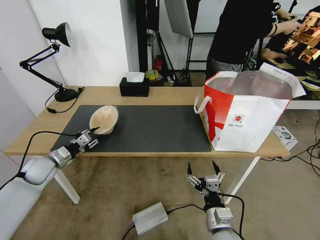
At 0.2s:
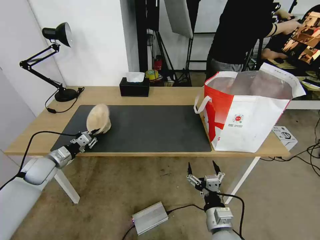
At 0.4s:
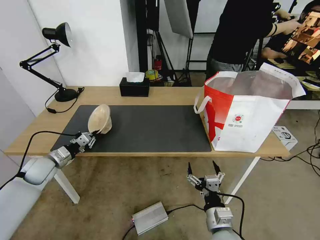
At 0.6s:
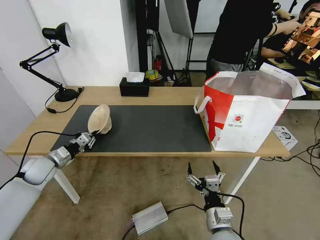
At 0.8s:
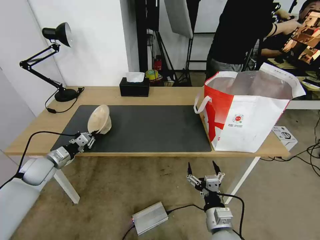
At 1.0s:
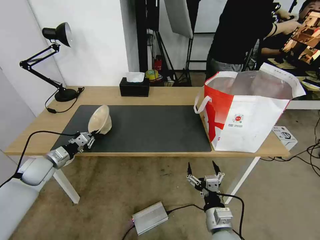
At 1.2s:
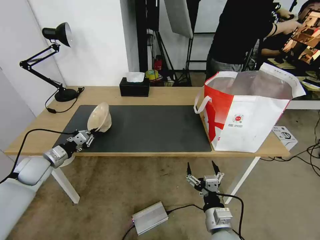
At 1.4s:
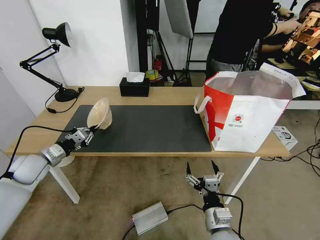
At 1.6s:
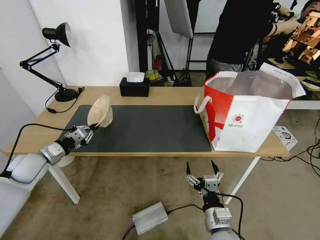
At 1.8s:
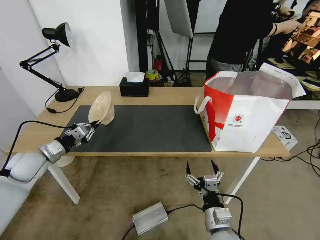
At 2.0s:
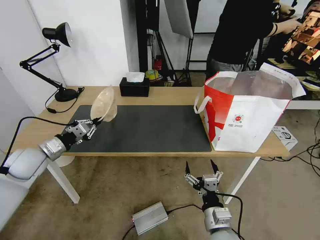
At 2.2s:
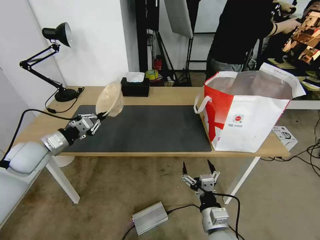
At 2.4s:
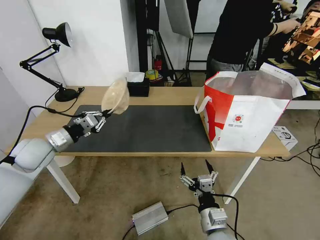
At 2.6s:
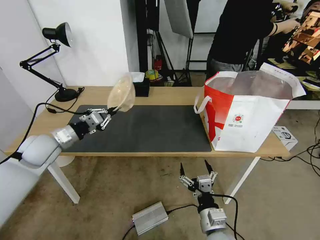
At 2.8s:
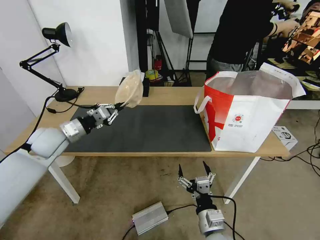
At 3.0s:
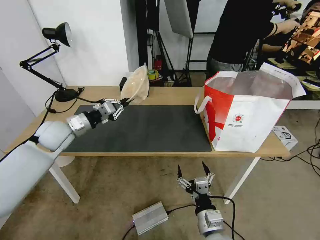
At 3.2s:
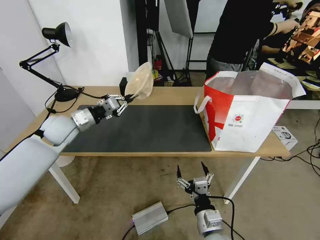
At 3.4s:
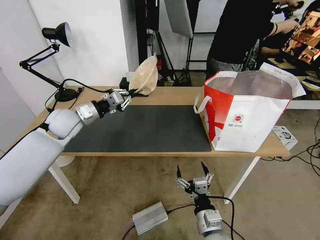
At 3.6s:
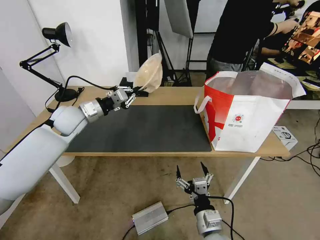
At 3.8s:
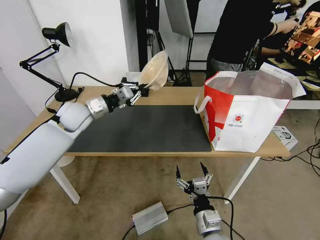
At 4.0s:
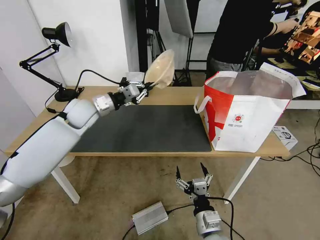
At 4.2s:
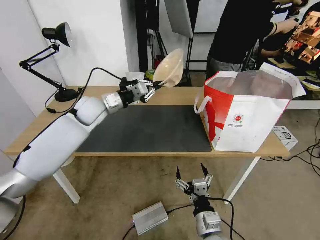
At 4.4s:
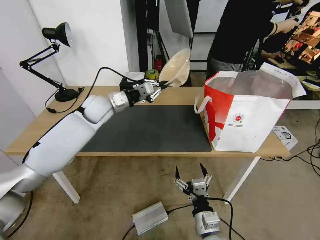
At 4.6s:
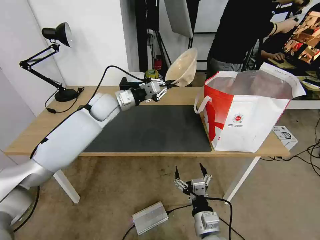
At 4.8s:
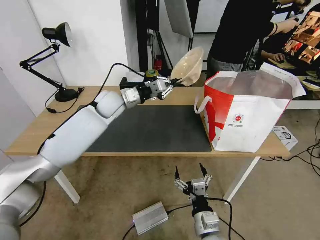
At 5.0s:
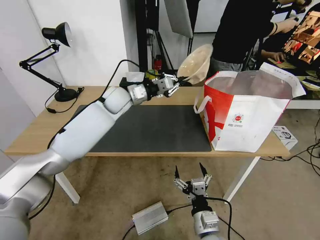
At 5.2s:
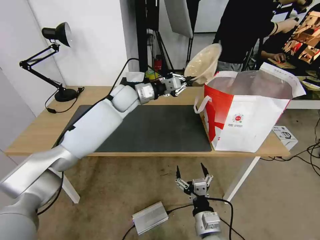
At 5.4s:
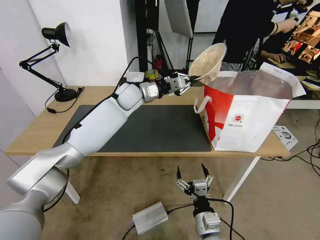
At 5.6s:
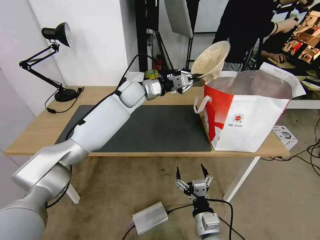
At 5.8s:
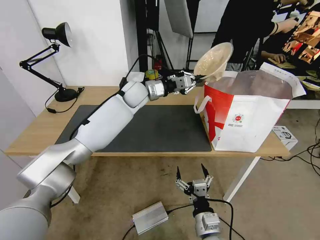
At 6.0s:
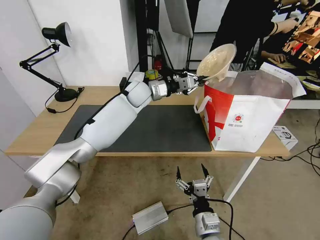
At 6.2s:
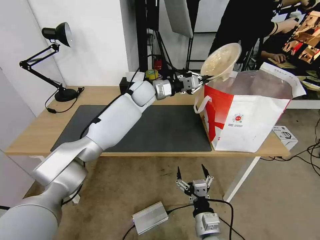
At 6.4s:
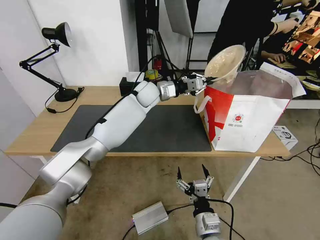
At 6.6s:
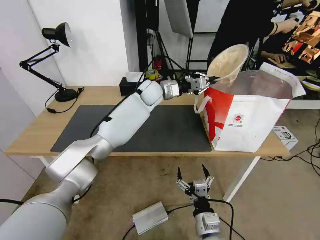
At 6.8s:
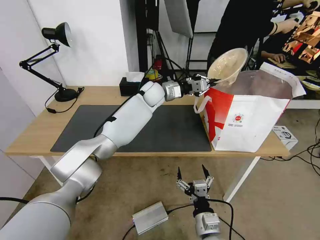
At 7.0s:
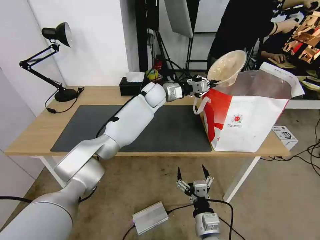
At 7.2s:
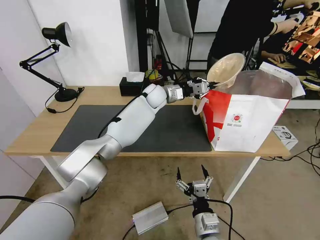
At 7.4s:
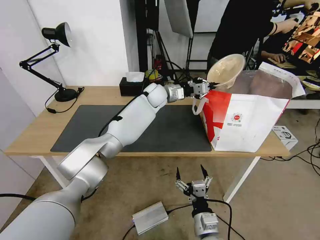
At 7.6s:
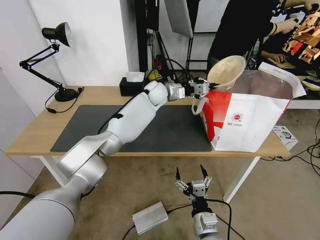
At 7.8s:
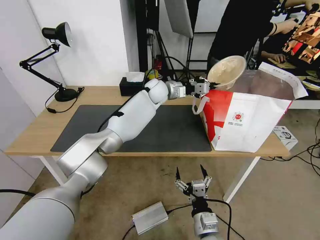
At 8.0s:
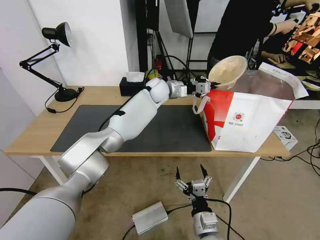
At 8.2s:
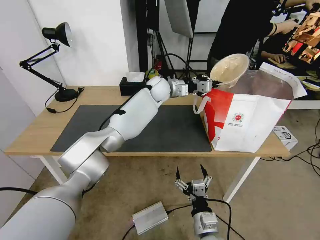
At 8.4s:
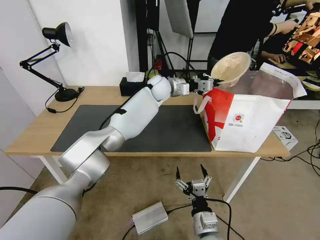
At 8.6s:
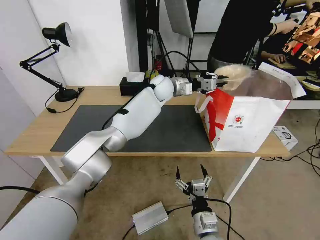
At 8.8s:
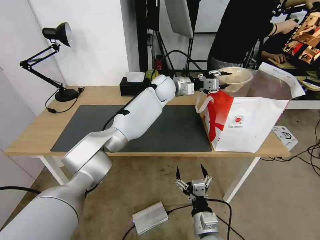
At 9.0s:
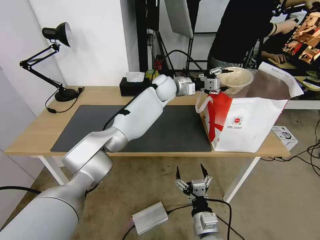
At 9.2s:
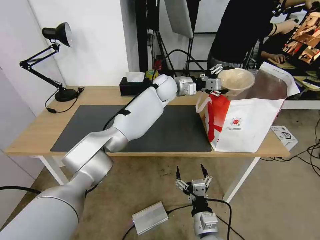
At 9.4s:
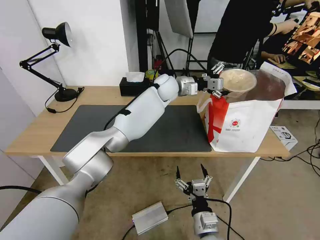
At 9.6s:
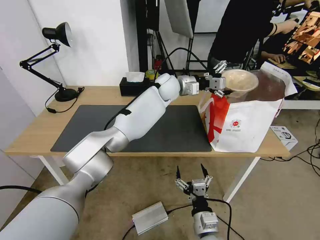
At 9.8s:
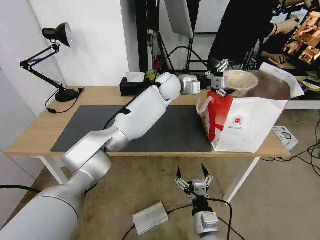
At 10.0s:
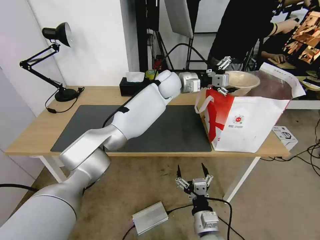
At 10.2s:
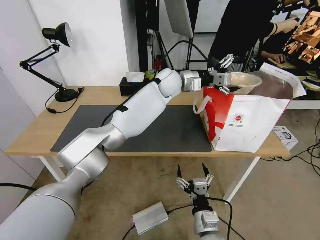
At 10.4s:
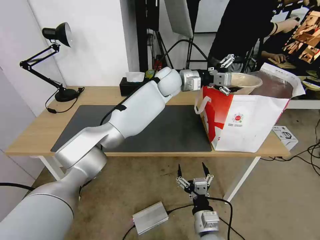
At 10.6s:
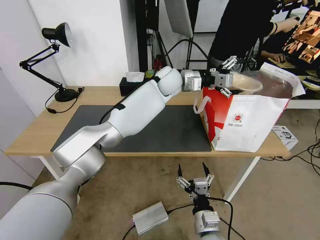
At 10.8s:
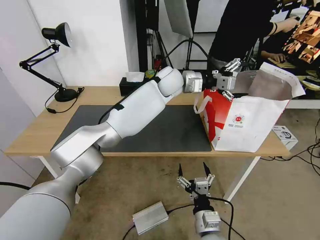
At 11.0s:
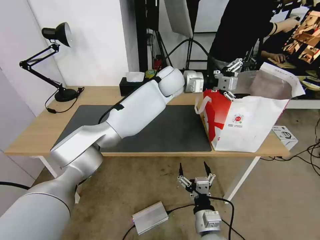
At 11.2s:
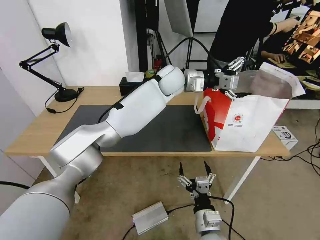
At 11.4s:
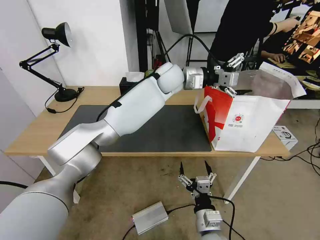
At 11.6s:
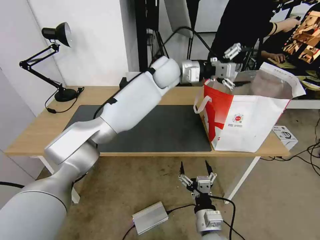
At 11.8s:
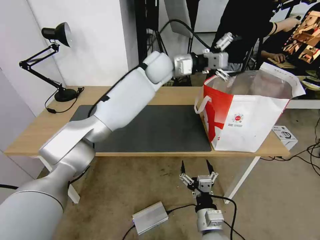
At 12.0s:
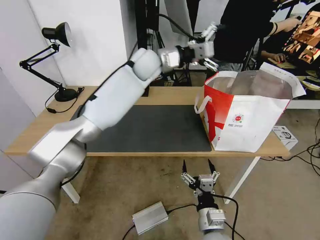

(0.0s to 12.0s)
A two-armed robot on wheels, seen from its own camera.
Task of the whole recording: Pick up the trash from the table and place it into the takeout bag.
0.0s - 1.6s: The left gripper heads upward, covering some 5 cm.
1.6s - 3.0s: The left gripper is displaced to the right, upward and forward by approximately 15 cm.
3.0s - 4.4s: The left gripper goes roughly 15 cm to the right and forward.
4.4s - 6.0s: The left gripper travels to the right and forward by about 15 cm.
6.0s - 7.6s: The left gripper travels to the right by about 5 cm.
7.6s - 9.0s: The left gripper opens up.
9.0s - 10.4s: The grippers make only small movements.
10.4s - 12.0s: The left gripper travels to the left and upward by roughly 10 cm.

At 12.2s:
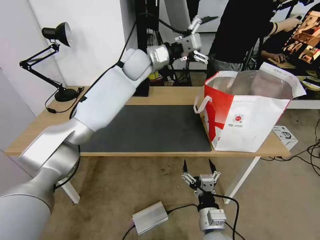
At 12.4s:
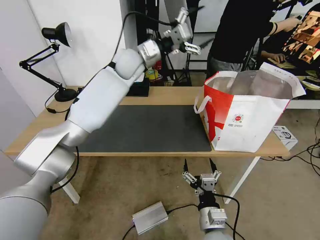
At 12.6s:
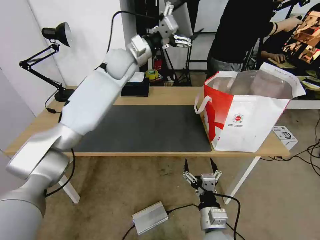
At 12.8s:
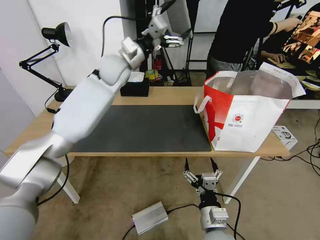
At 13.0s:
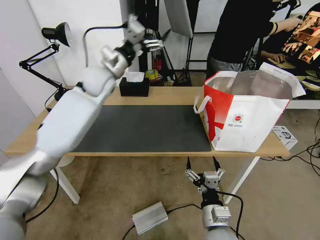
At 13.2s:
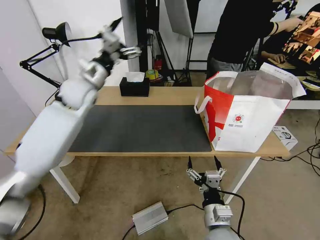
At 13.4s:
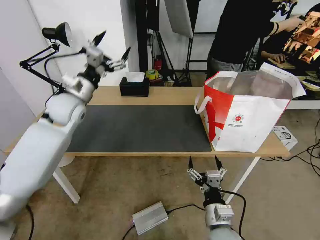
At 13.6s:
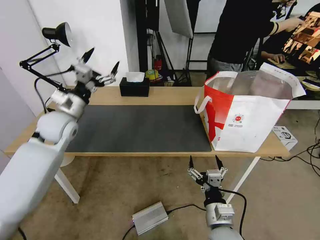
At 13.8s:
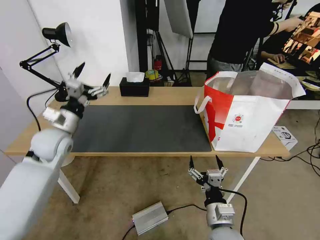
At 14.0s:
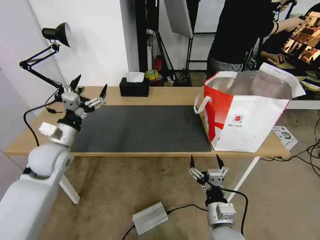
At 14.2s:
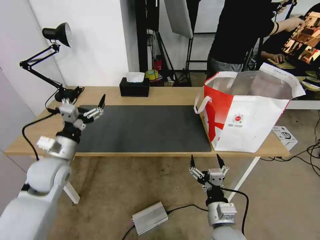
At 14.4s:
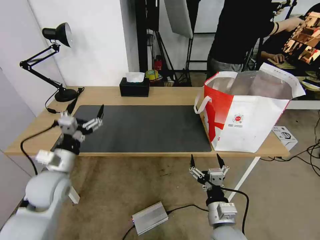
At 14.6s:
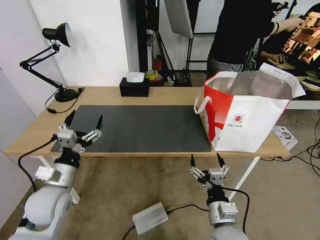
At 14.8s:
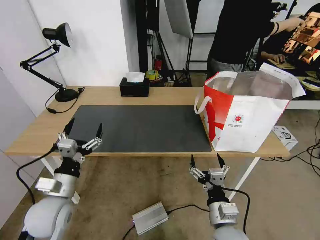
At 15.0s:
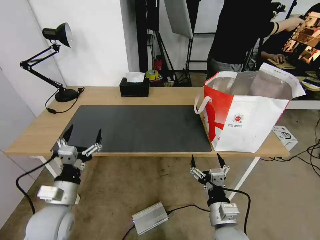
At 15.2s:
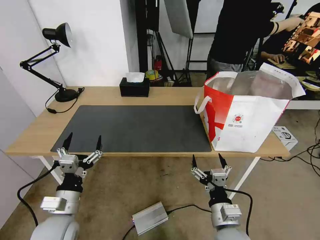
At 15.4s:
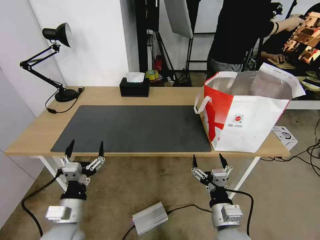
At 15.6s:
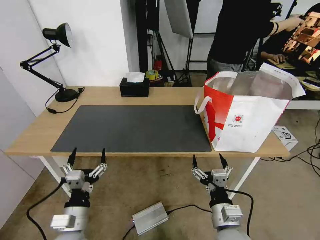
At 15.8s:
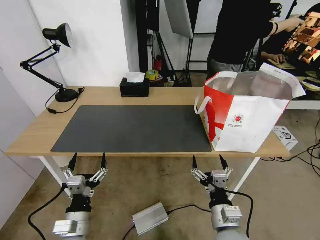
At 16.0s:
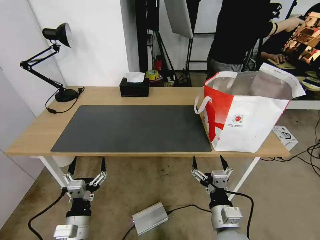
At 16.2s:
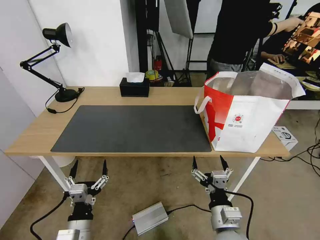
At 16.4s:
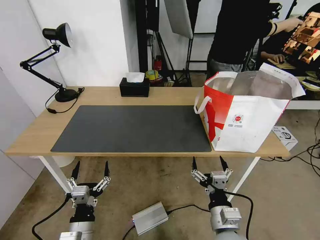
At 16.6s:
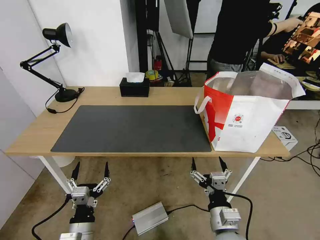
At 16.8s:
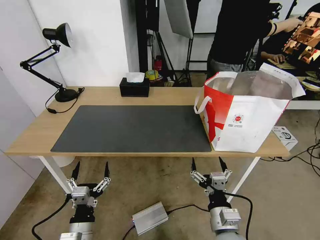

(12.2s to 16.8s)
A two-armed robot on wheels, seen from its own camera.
Task of the whole recording: Pick up the trash from the table and place it into the takeout bag.
12.2s - 13.8s: The left gripper goes roughly 35 cm to the left, backward and downward.
13.8s - 15.2s: The left gripper heads backward and downward, covering some 25 cm.
15.2s - 16.8s: The left gripper is displaced downward and backward by about 10 cm.

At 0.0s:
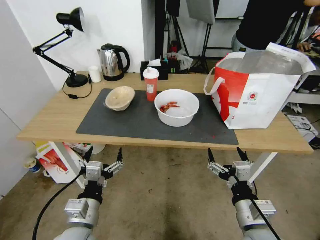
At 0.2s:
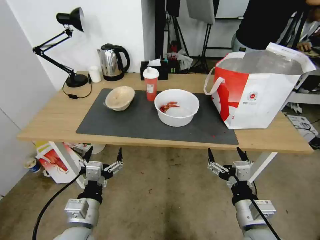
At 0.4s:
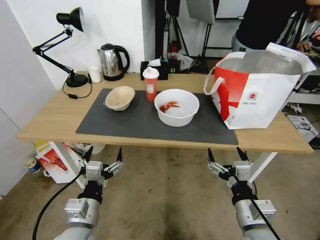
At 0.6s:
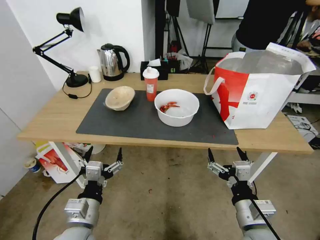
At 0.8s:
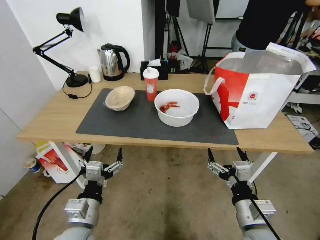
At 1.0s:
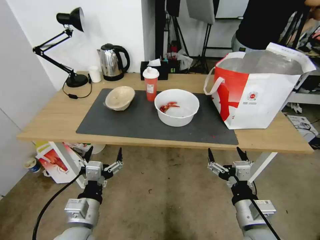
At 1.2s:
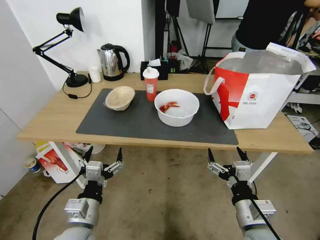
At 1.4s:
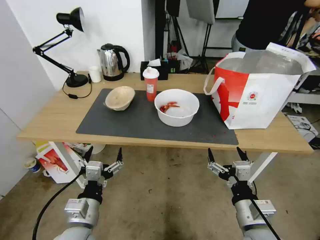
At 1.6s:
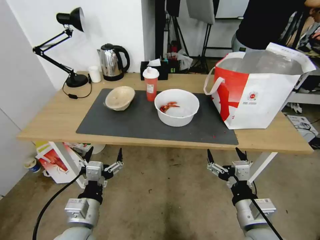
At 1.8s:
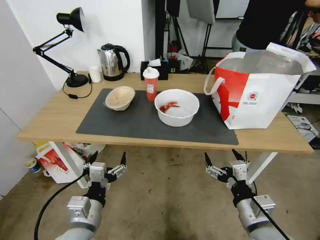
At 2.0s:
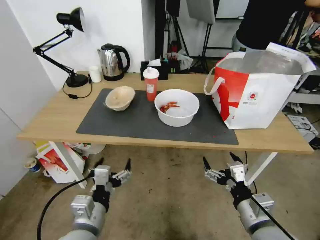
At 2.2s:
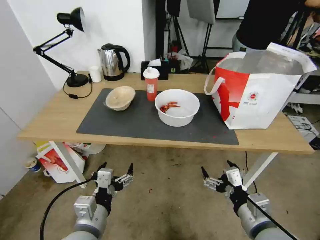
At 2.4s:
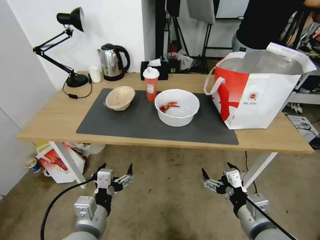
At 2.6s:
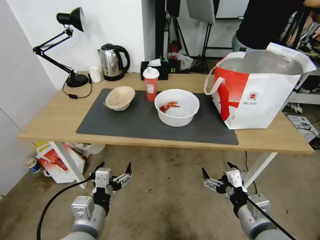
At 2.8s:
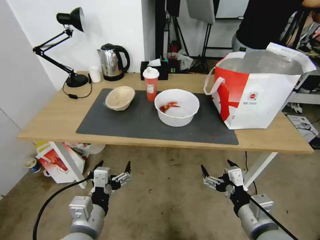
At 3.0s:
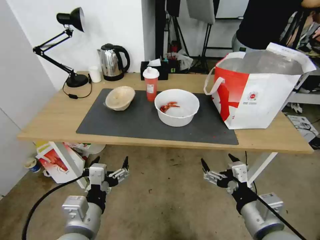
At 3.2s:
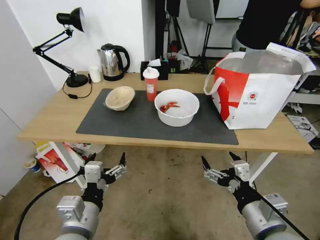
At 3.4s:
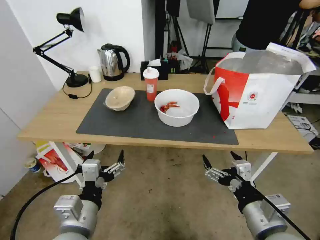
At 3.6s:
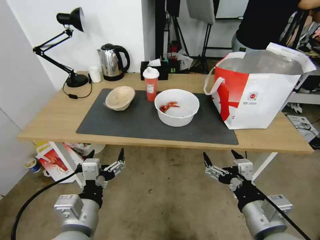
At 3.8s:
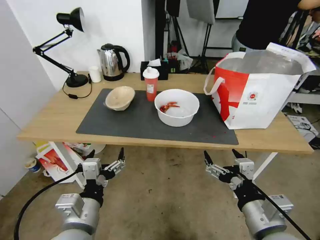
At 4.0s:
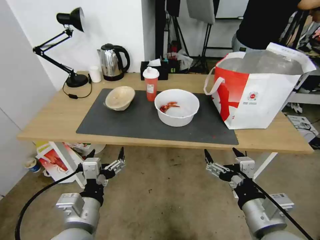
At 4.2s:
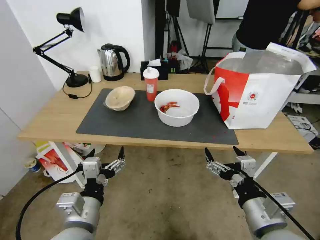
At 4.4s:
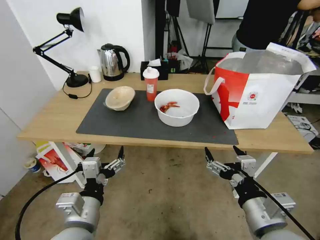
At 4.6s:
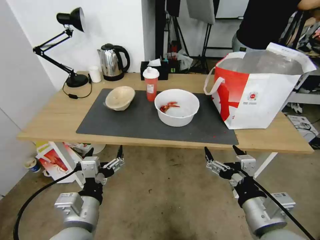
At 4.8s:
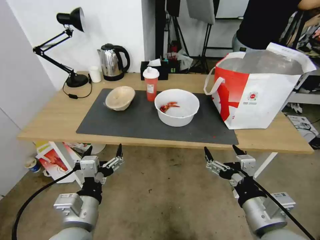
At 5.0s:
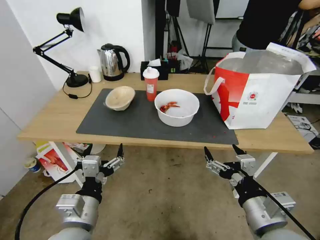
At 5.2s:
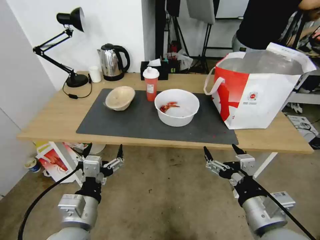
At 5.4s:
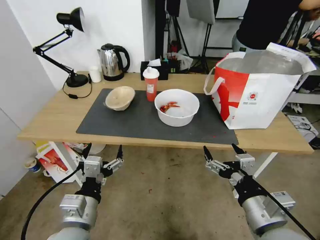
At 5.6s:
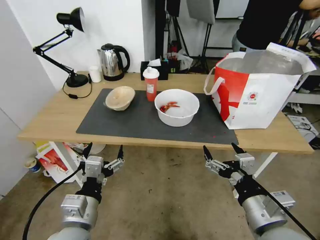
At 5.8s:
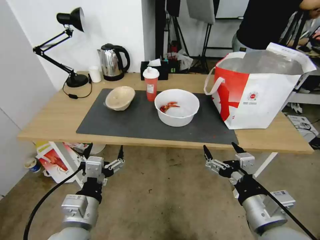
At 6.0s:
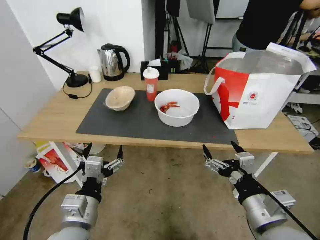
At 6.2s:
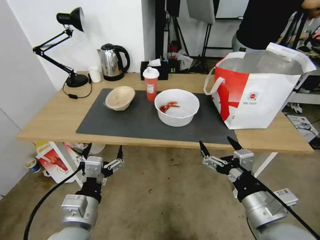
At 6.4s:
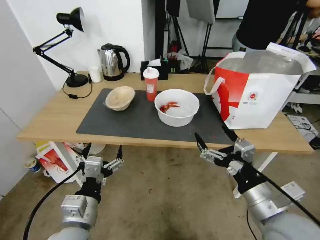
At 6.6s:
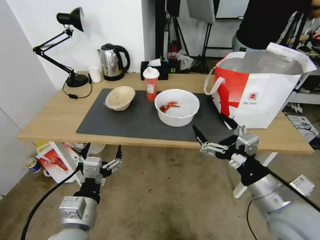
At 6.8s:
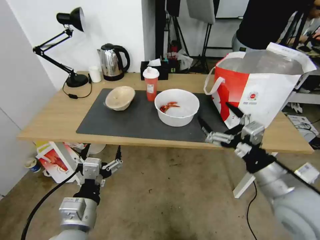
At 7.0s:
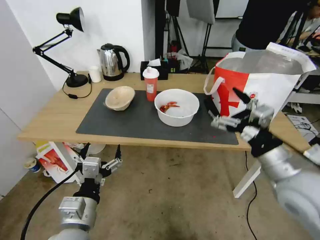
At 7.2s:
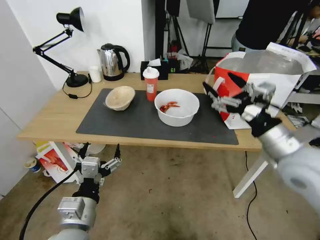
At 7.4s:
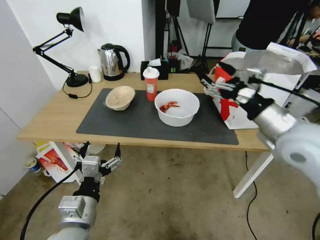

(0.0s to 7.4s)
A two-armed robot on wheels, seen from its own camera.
Task of the whole recording: Pick up the trash from the table and place it into the takeout bag.
1.4s - 3.0s: The right gripper moves upward, about 5 cm; the left gripper moves approximately 5 cm.
3.0s - 6.0s: The grippers stay close to where they were, moving slightly.
6.0s - 7.4s: The right gripper goes approximately 20 cm forward and upward.
